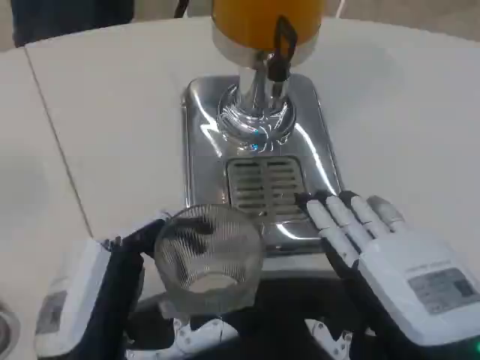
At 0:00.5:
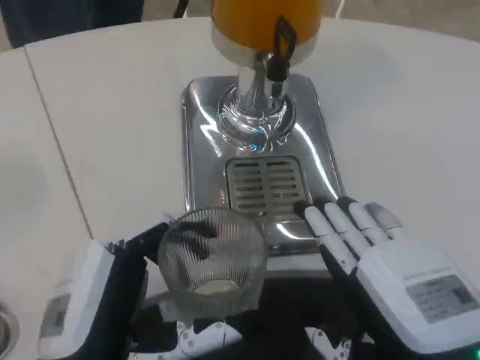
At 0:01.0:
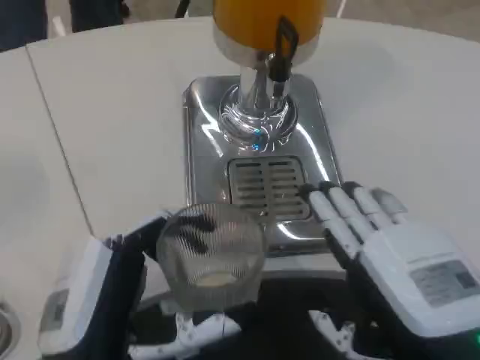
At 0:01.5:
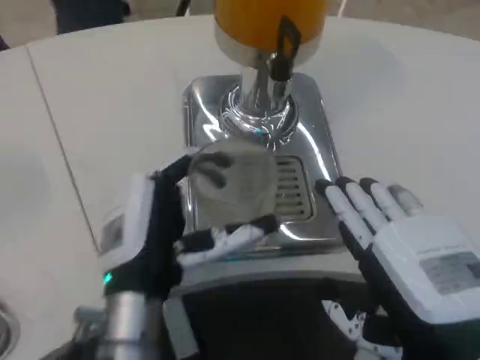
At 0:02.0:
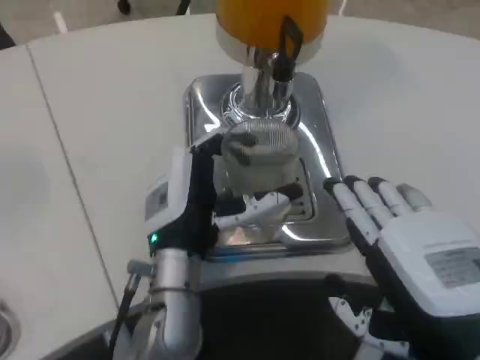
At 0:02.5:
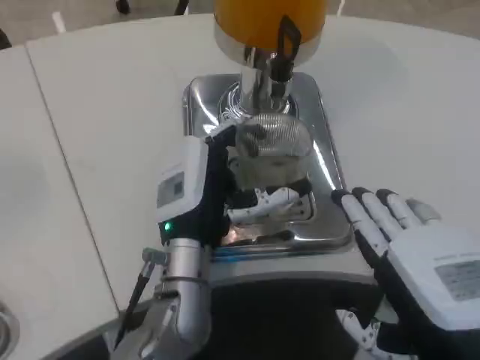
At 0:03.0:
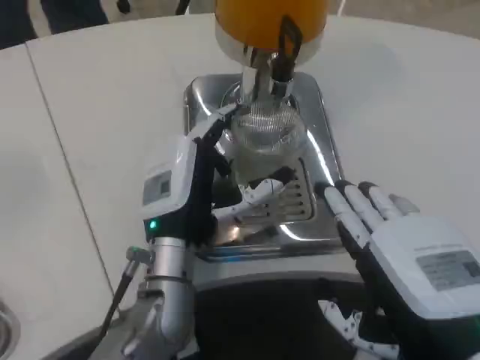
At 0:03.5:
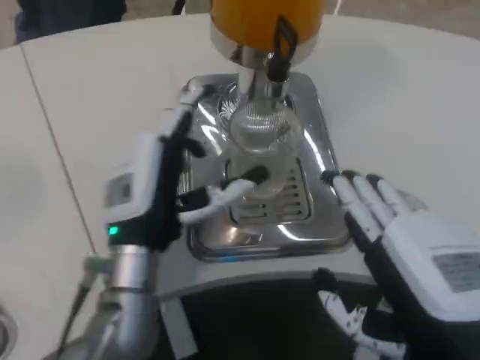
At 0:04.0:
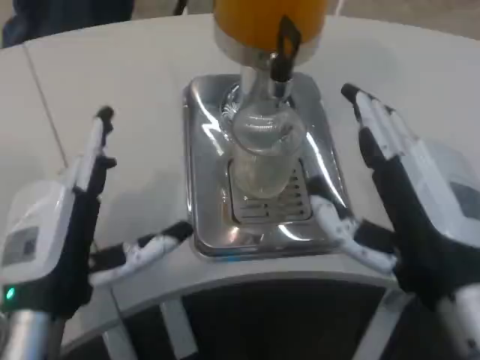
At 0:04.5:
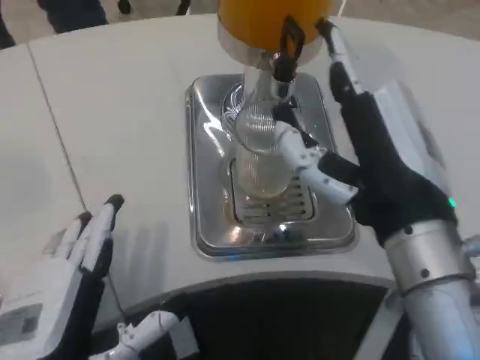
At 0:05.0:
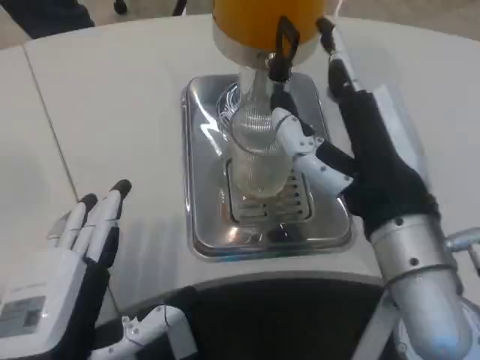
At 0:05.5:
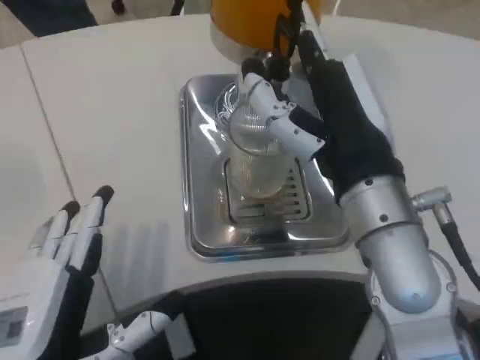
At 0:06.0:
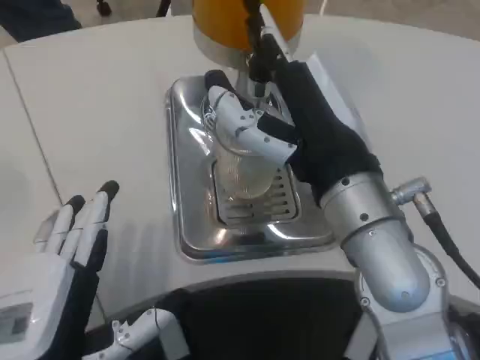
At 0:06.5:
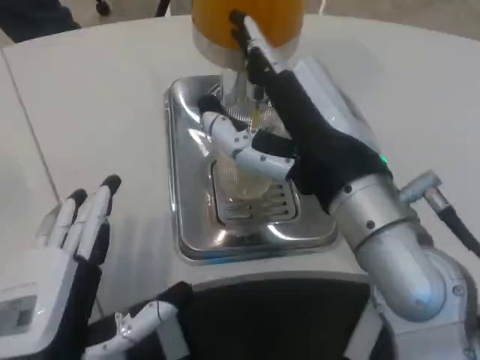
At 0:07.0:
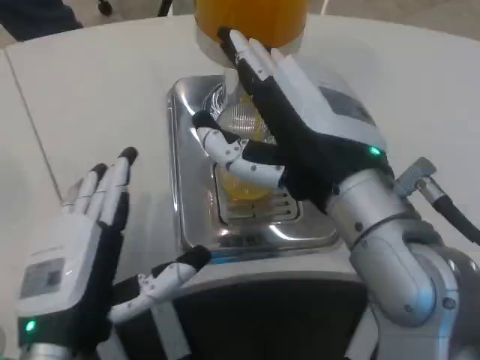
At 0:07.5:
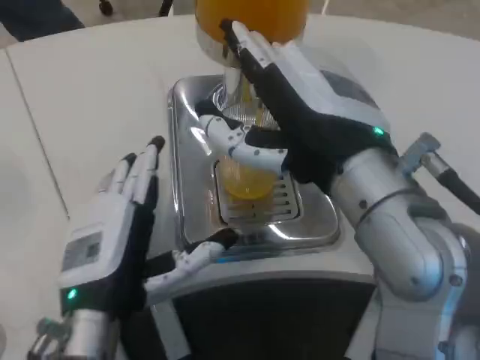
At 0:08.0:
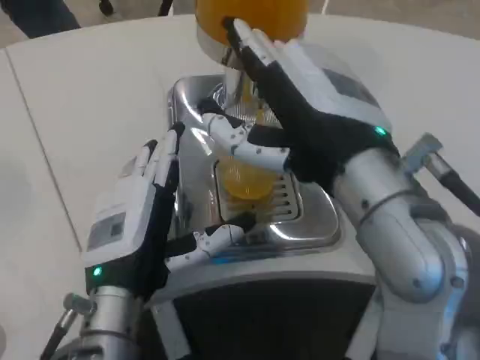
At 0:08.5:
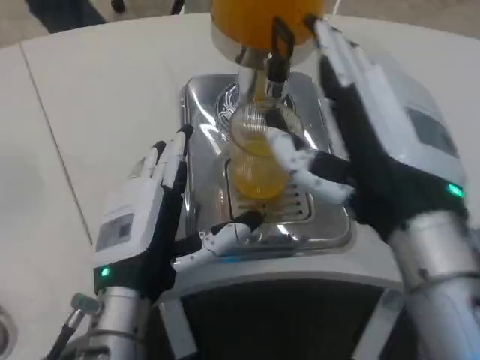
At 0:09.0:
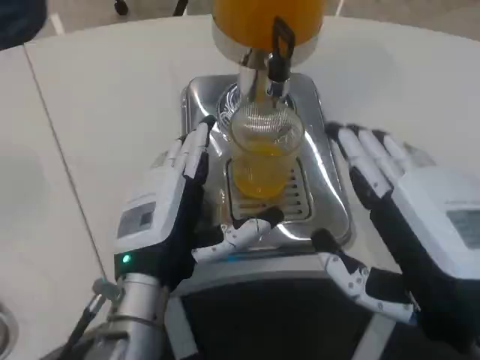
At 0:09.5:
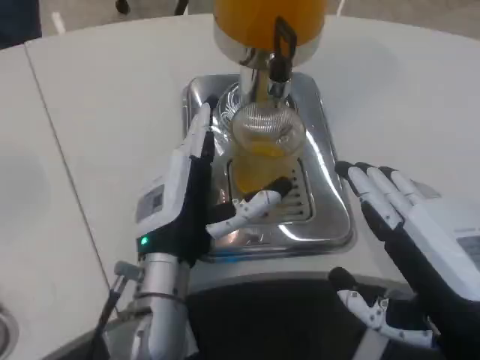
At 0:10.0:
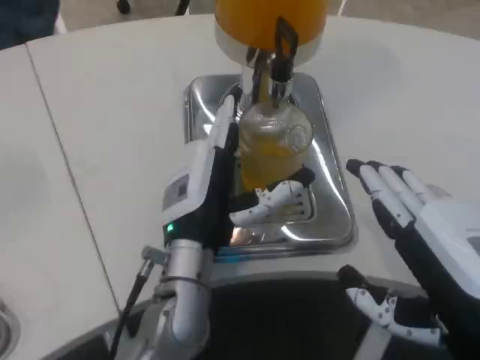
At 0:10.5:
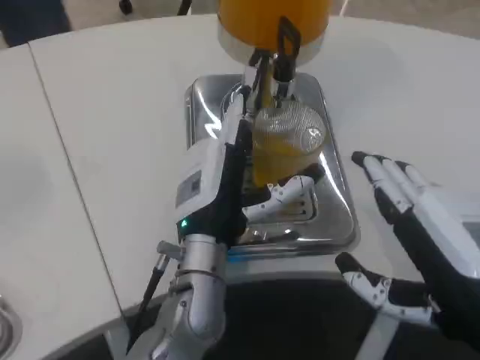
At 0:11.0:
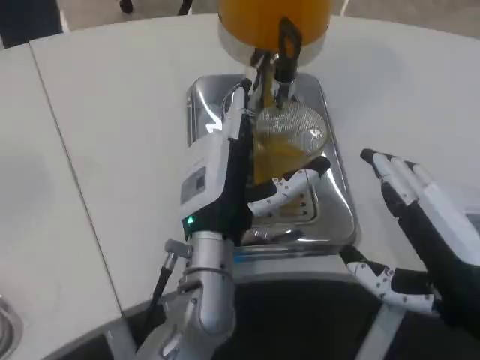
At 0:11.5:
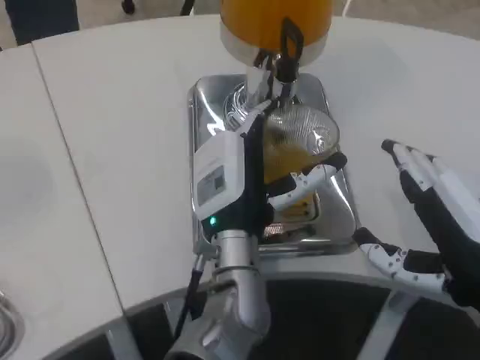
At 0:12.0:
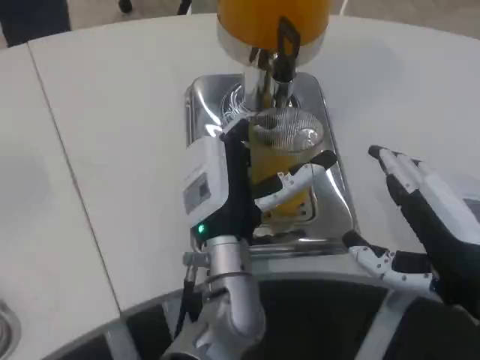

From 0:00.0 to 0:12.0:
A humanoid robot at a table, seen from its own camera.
Task of the whole recording: Grasp the cup under the faucet to collect the drink, then remove the cup.
From 0:00.0 to 0:02.0: The left hand is displaced forward and to the right by approximately 15 cm.
From 0:02.0 to 0:04.0: The left hand travels to the left and backward by some 15 cm.
From 0:04.0 to 0:06.0: The left hand shifts roughly 5 cm backward, while the right hand goes some 10 cm forward and to the left.
From 0:06.0 to 0:08.0: The left hand is displaced forward and to the right by some 10 cm.
From 0:08.0 to 0:10.0: The right hand shifts roughly 15 cm to the right, backward and downward, while the left hand goes approximately 10 cm to the right and forward.
From 0:10.0 to 0:12.0: The left hand travels to the right by about 5 cm.

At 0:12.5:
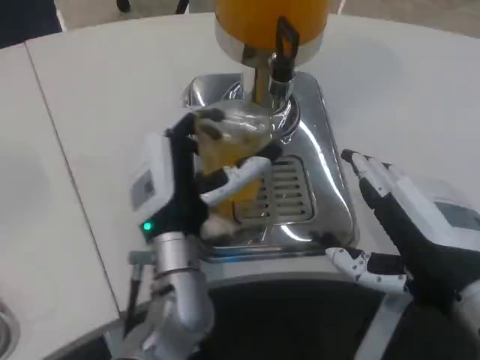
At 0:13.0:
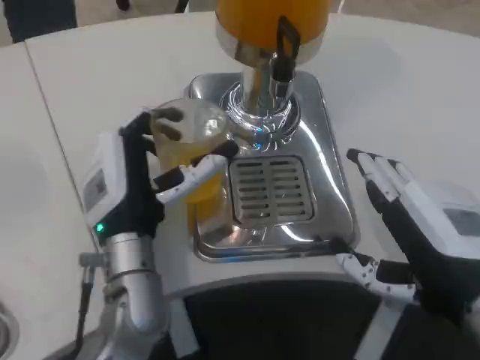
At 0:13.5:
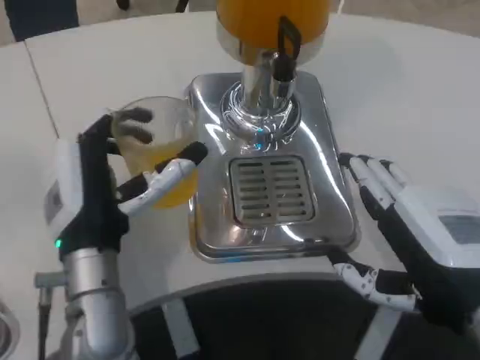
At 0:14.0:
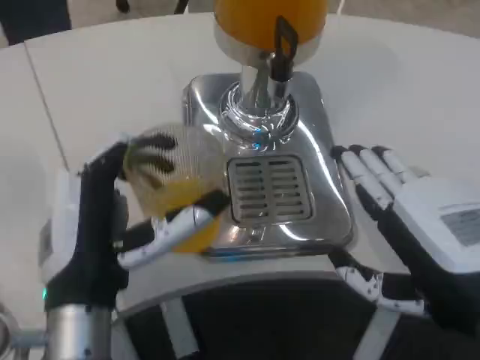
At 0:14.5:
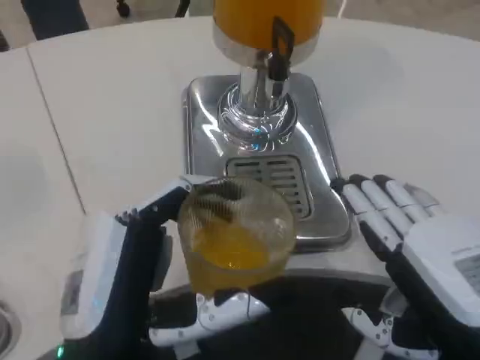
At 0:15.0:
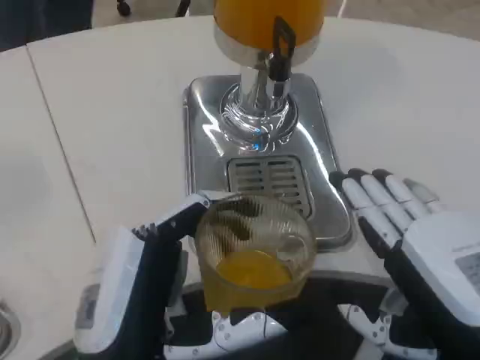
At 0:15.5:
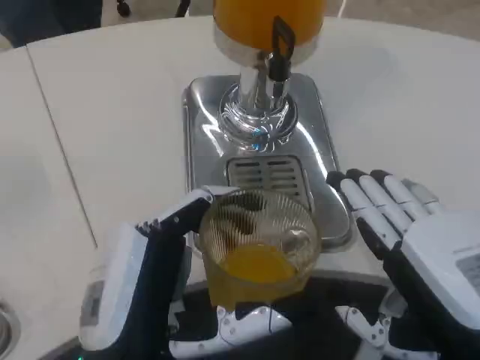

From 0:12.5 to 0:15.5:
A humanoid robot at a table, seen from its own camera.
Task of the whole recording: Grasp the cup under the faucet to collect the drink, then remove the cup.
From 0:12.5 to 0:14.0: The left hand goes approximately 15 cm backward and to the left.
From 0:14.0 to 0:15.5: The left hand shifts some 5 cm backward.

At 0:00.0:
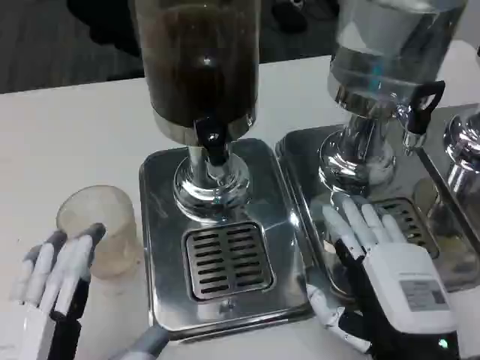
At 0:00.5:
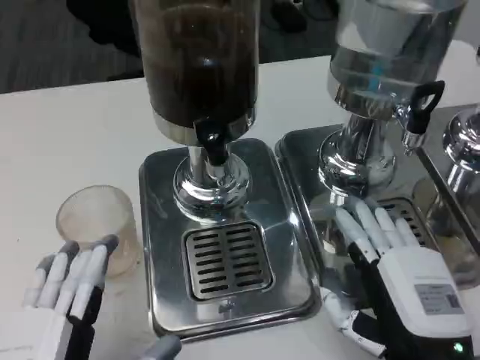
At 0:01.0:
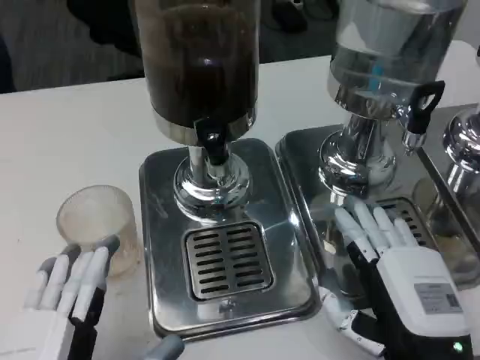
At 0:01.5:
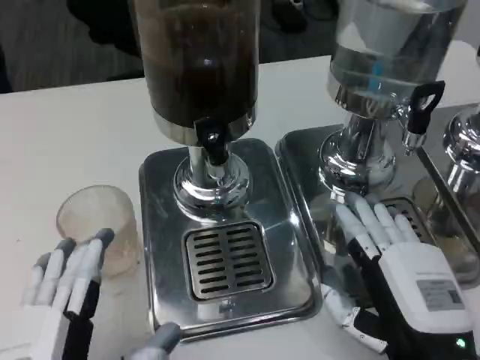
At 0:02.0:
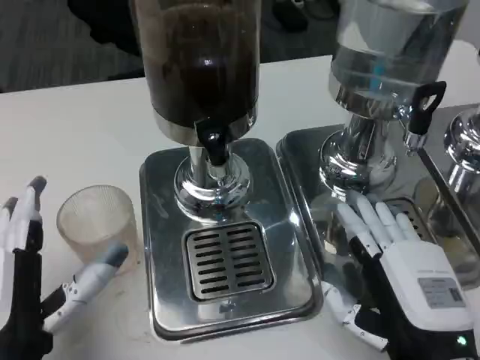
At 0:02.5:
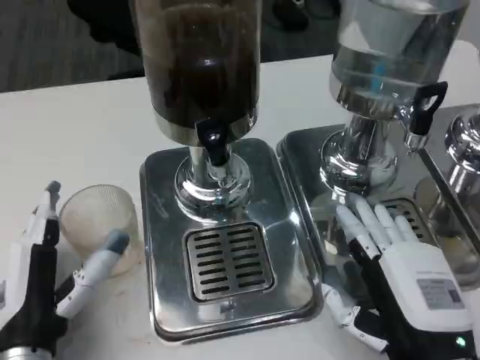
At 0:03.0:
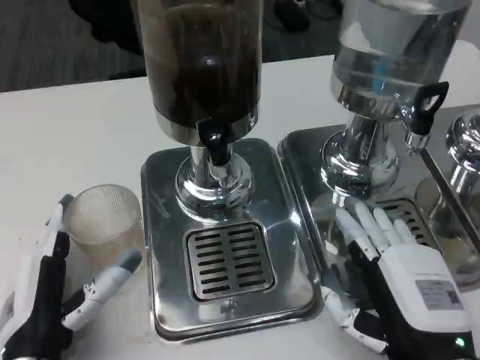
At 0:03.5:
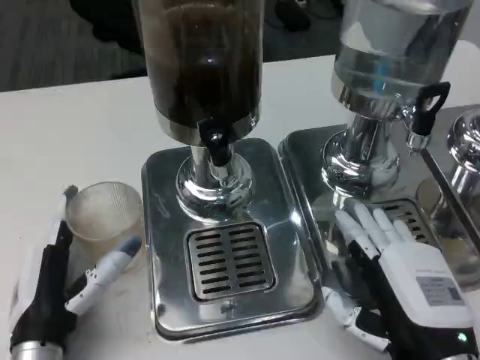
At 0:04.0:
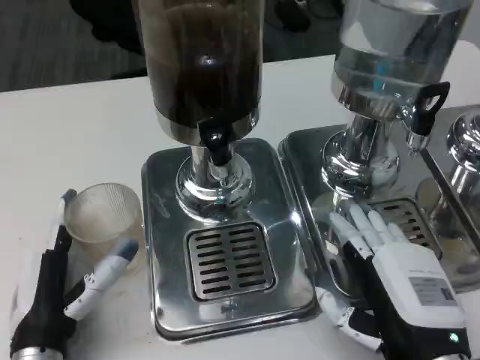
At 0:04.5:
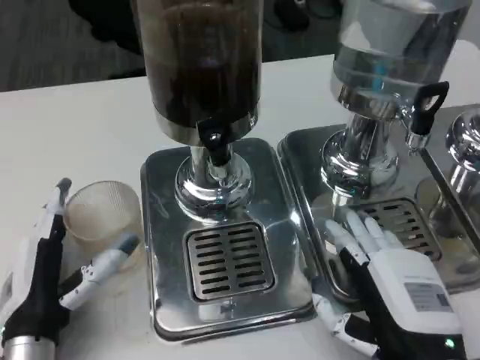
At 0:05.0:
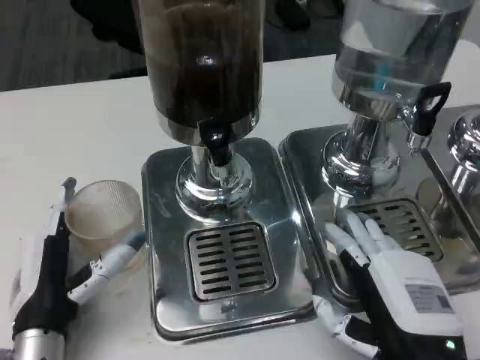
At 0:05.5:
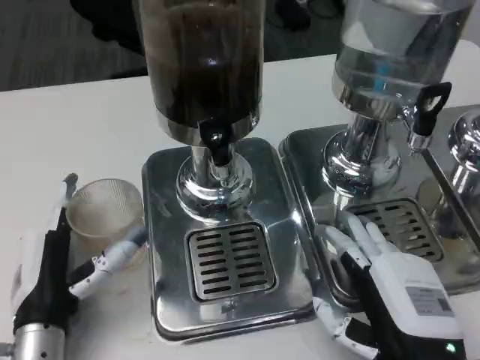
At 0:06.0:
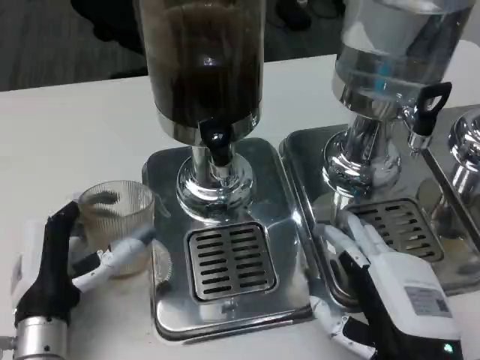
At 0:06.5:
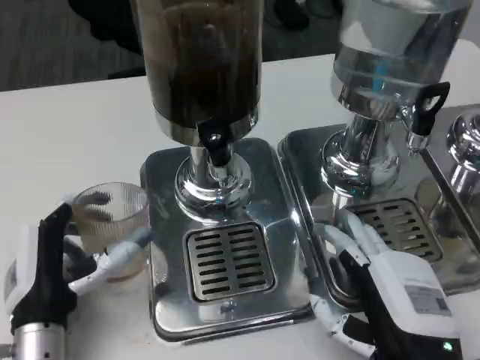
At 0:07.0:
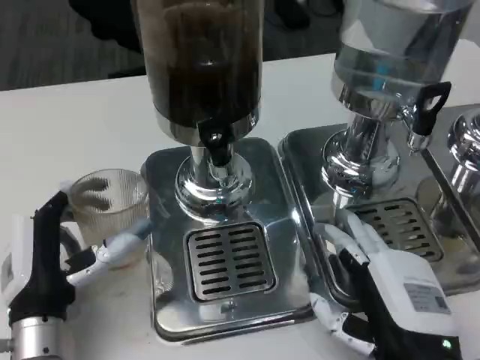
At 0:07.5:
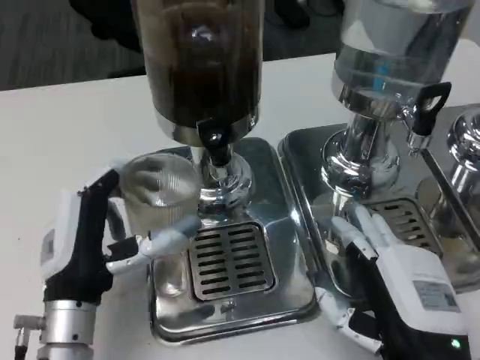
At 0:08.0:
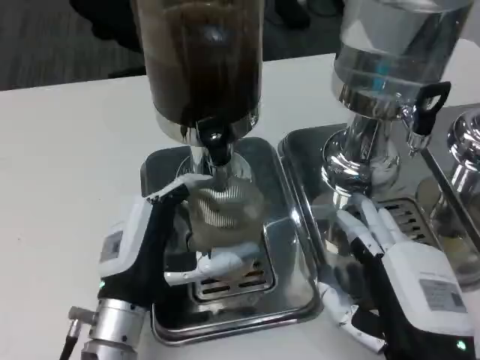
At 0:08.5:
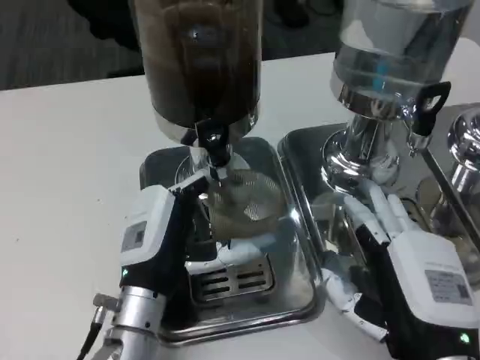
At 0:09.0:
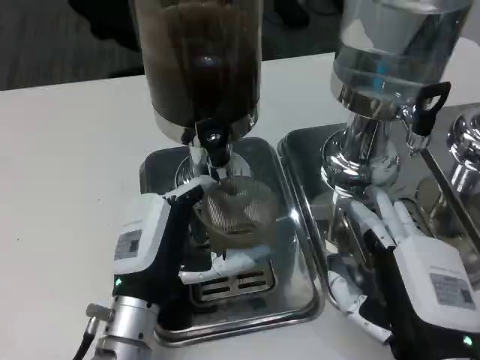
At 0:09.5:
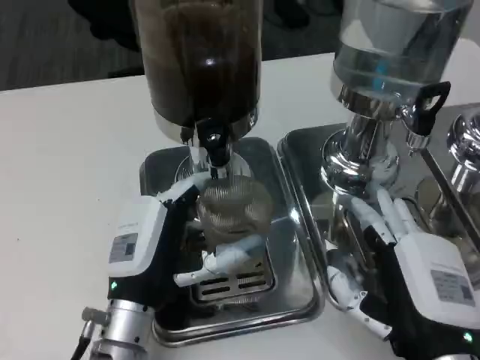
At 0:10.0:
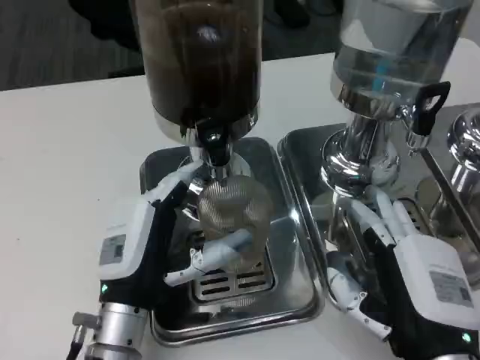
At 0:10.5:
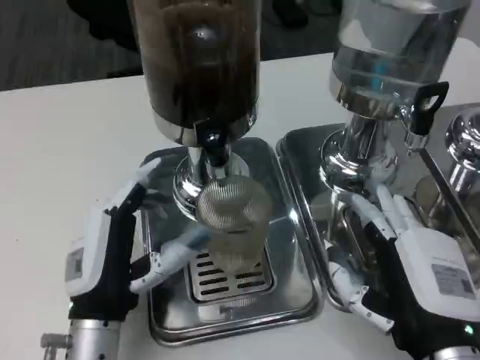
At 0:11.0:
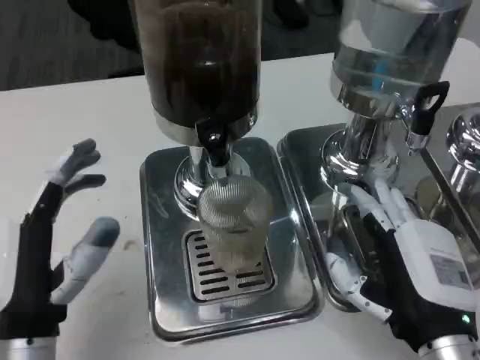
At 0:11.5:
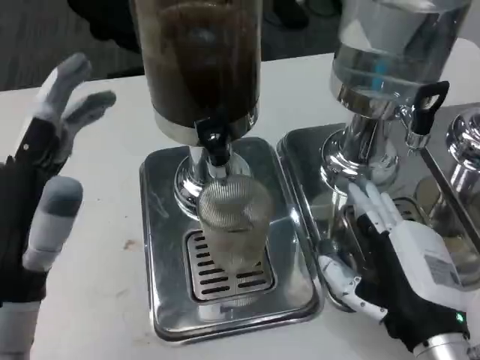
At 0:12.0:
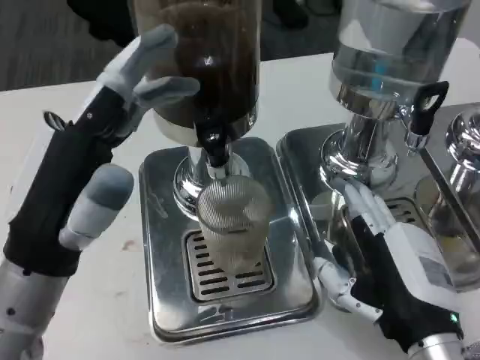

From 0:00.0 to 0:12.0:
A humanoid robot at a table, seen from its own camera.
Task of the whole recording: Grasp the cup under the faucet to collect the drink, then remove the cup.
From 0:00.0 to 0:02.0: The left hand is displaced forward by roughly 5 cm.
From 0:02.0 to 0:04.0: The left hand changes place by roughly 5 cm.
From 0:04.0 to 0:06.0: The hands make only small movements.
From 0:06.0 to 0:08.0: The left hand travels to the right by roughly 5 cm.
From 0:08.0 to 0:10.0: The hands make only small movements.
From 0:10.0 to 0:12.0: The left hand goes about 15 cm upward and to the left.
